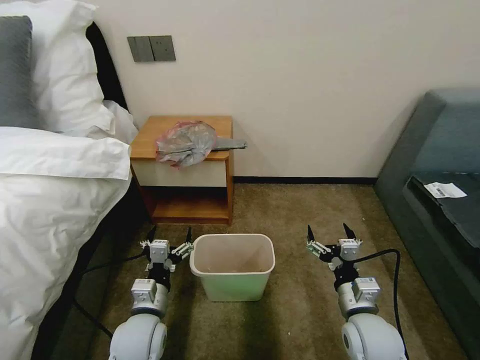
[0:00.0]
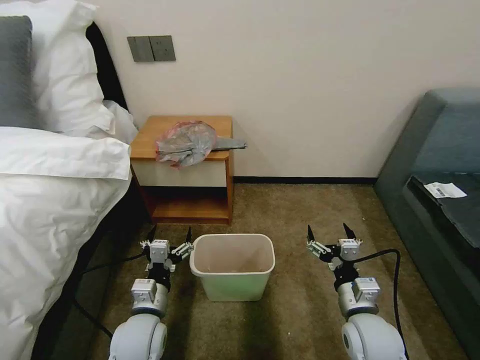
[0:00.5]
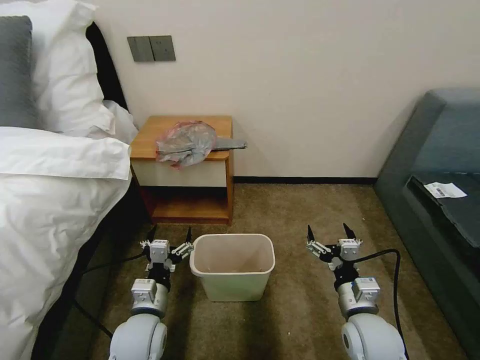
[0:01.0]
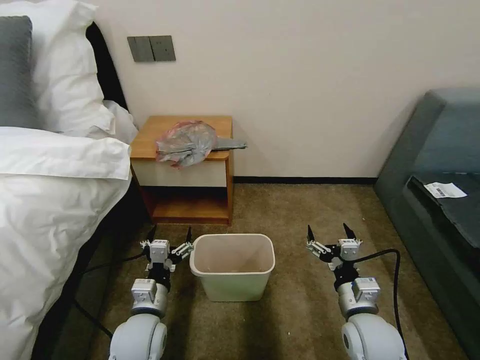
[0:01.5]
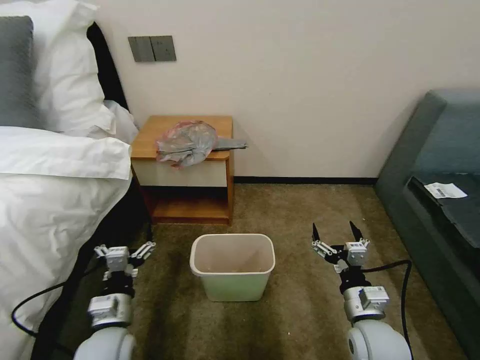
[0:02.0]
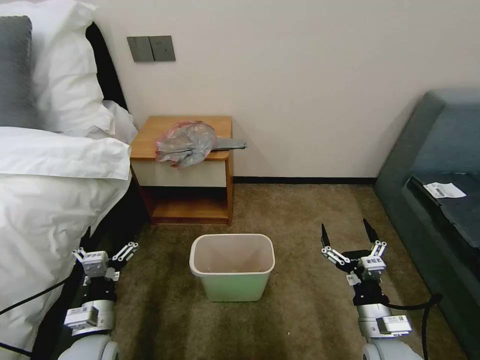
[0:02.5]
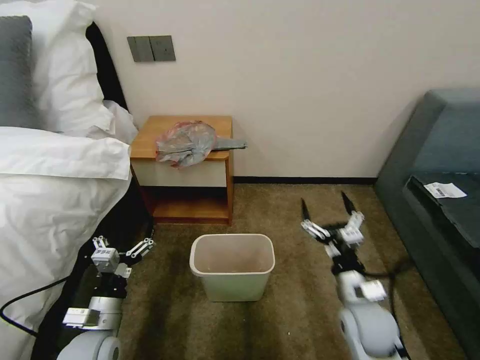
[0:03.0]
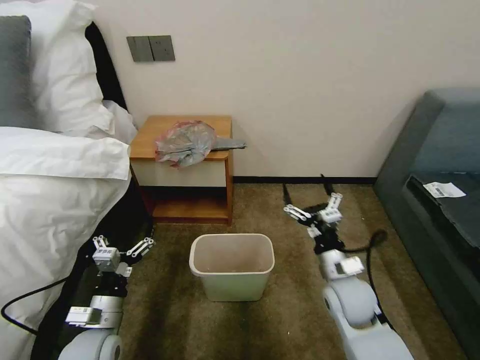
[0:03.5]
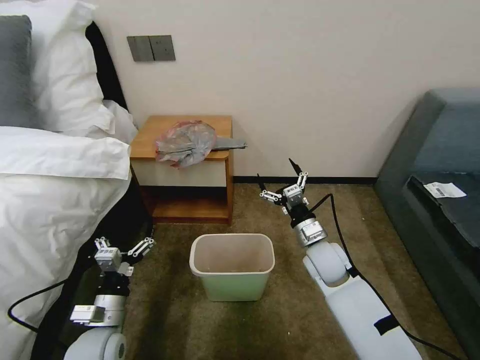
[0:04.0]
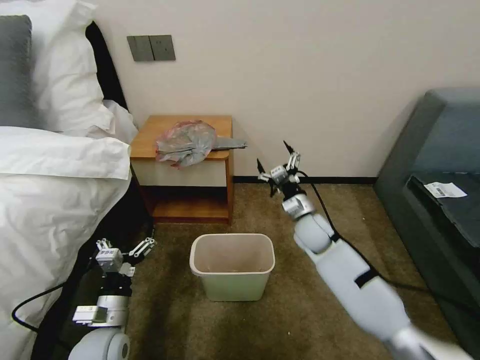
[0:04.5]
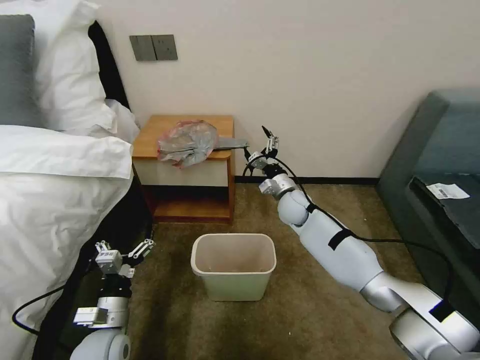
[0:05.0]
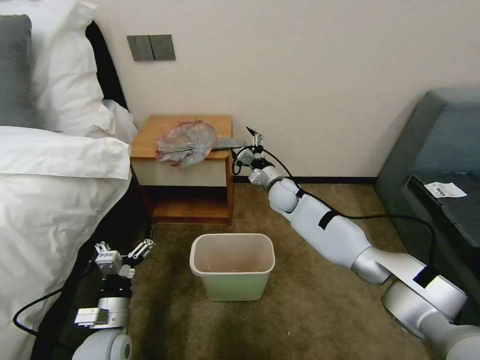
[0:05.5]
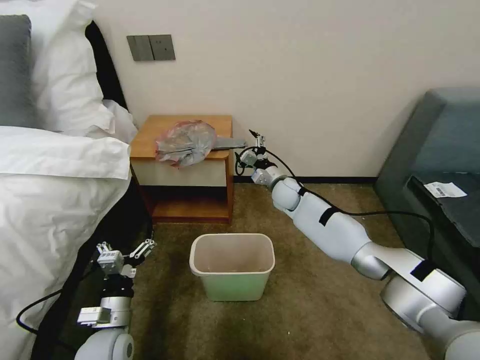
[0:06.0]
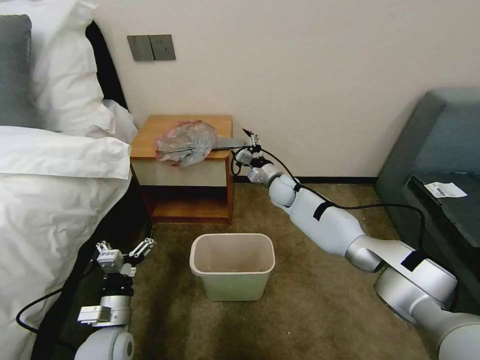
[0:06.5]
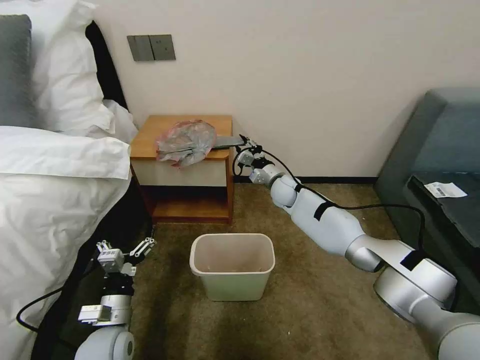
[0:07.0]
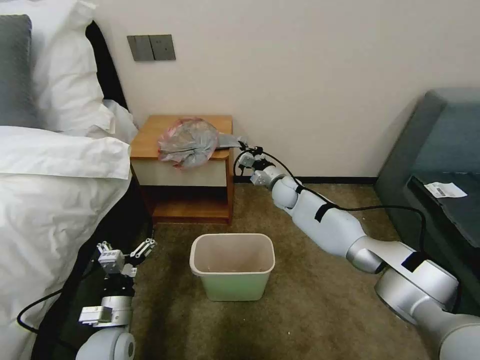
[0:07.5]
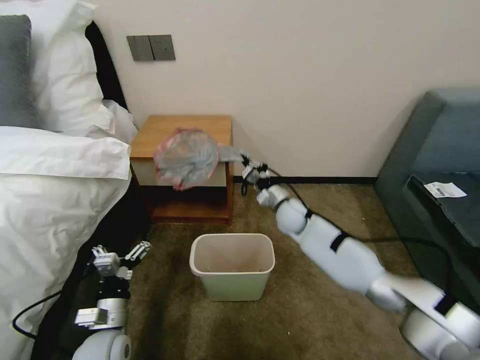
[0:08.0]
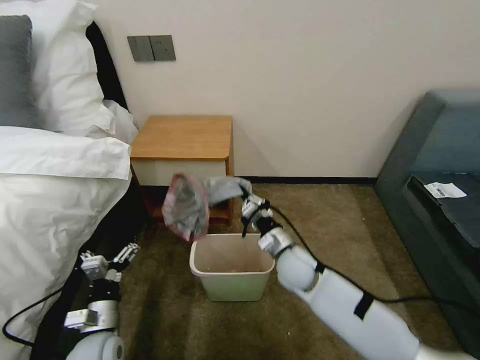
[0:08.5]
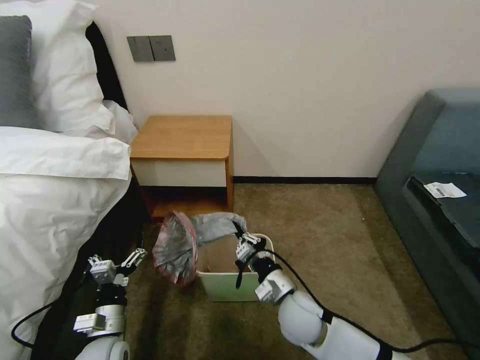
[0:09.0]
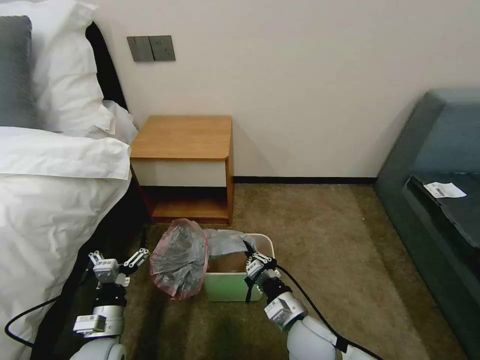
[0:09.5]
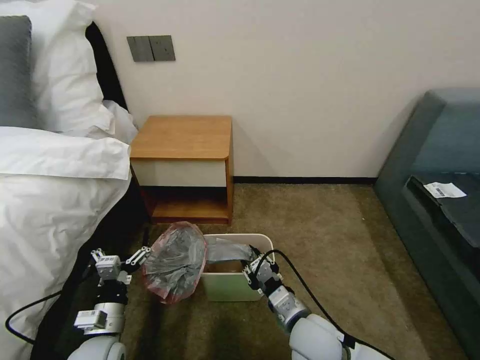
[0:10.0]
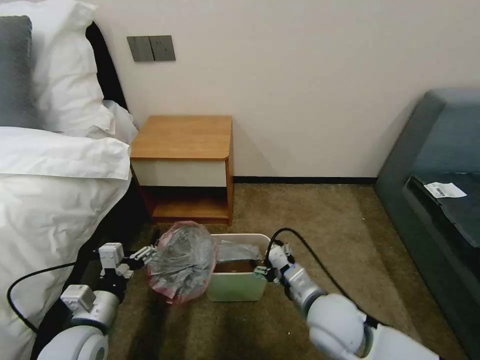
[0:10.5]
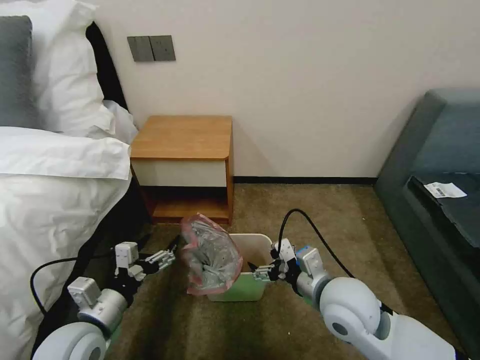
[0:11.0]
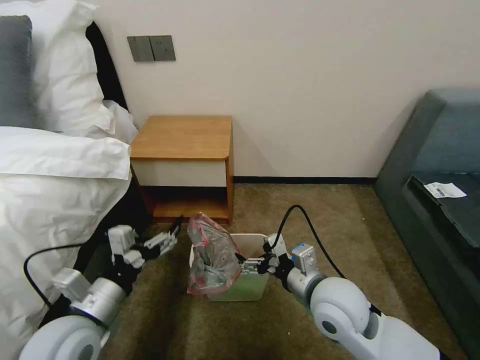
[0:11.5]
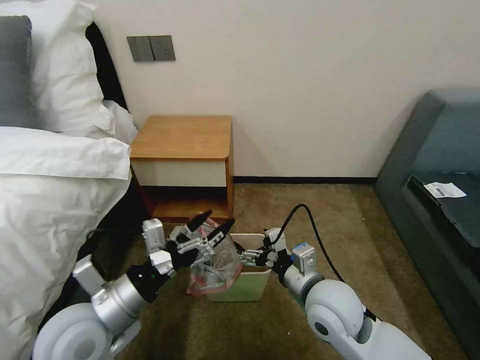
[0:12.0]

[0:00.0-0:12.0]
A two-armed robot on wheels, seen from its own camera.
Task of the whole recording: Pick up the garbage bag from the table and place it over the trash can.
0:02.0 to 0:04.0: The right gripper moves forward, some 15 cm.
0:04.0 to 0:06.0: The right gripper goes about 20 cm forward.
0:06.0 to 0:08.0: The right gripper travels backward by roughly 5 cm, and closes its fingers.
0:08.0 to 0:10.0: The right gripper travels backward by about 30 cm, and opens its fingers.
0:10.0 to 0:12.0: The left gripper shifts roughly 15 cm upward. Meanwhile the right gripper heads upward, covering roughly 10 cm, and opens.

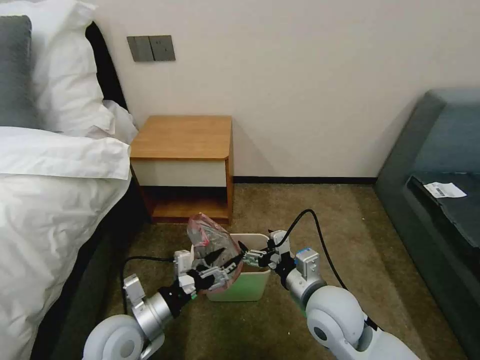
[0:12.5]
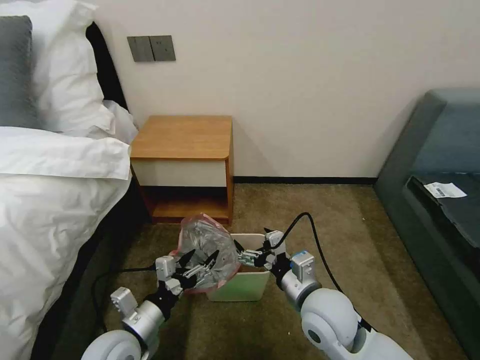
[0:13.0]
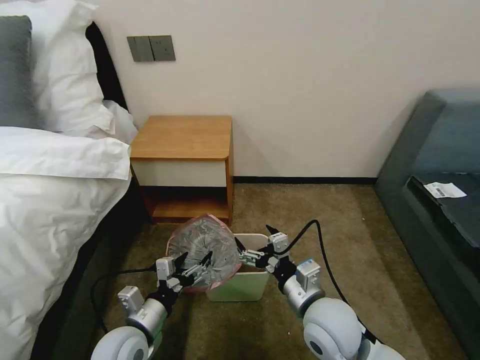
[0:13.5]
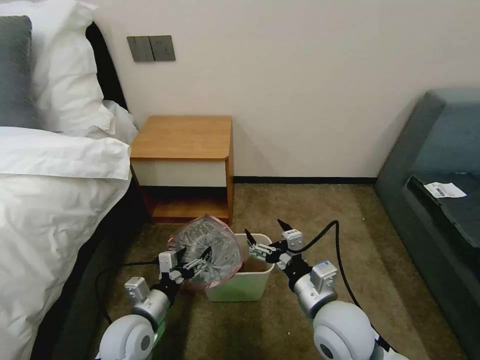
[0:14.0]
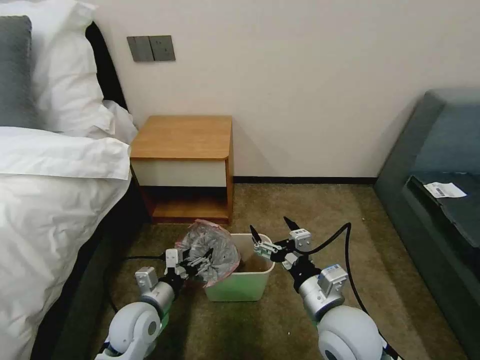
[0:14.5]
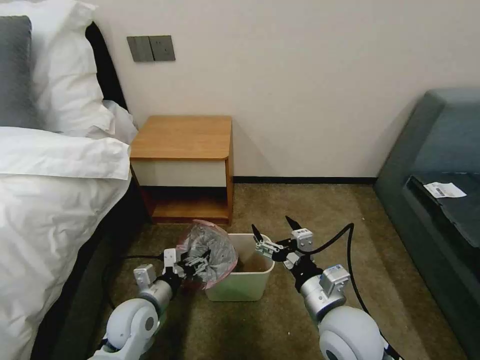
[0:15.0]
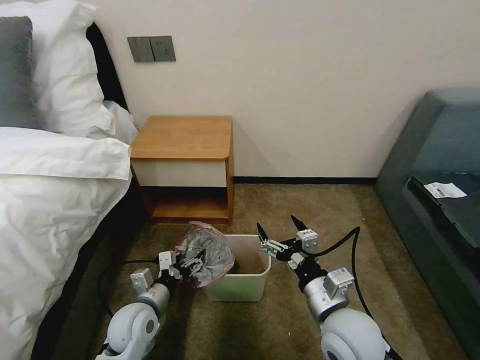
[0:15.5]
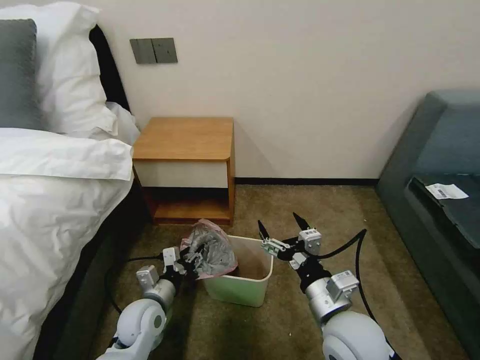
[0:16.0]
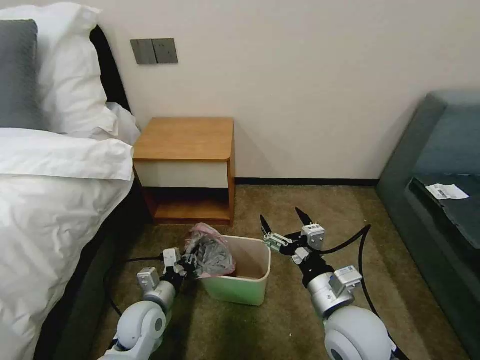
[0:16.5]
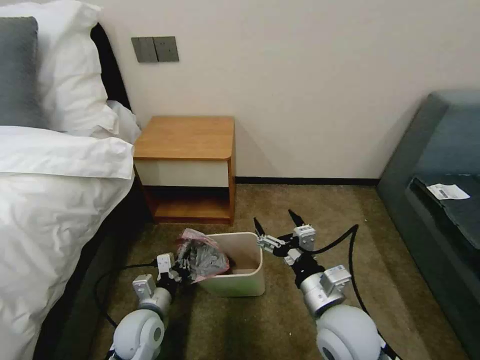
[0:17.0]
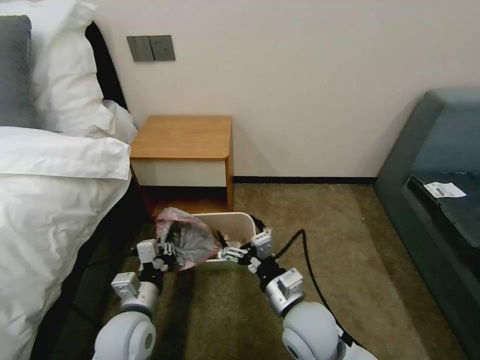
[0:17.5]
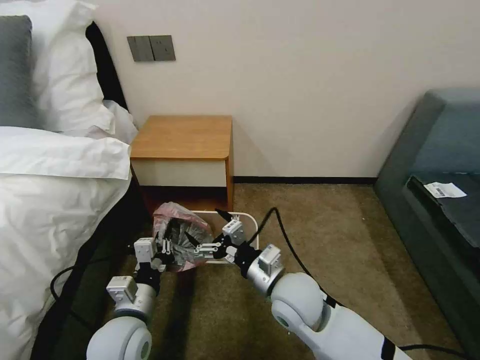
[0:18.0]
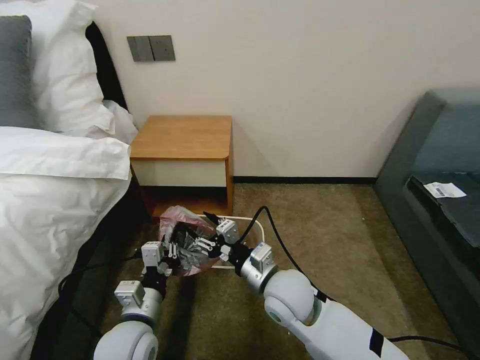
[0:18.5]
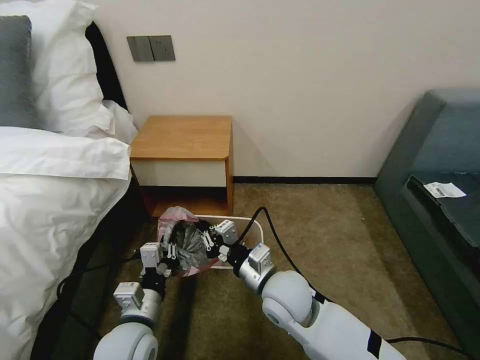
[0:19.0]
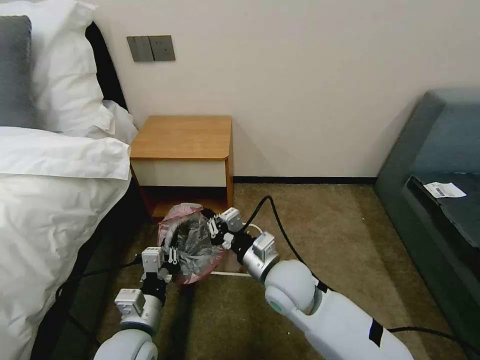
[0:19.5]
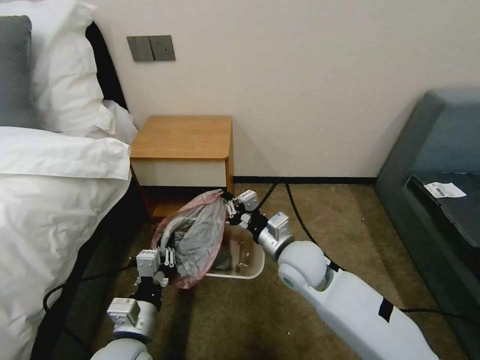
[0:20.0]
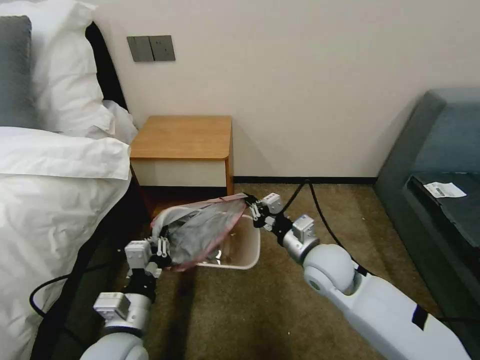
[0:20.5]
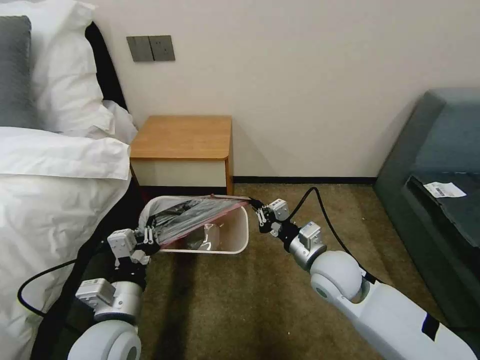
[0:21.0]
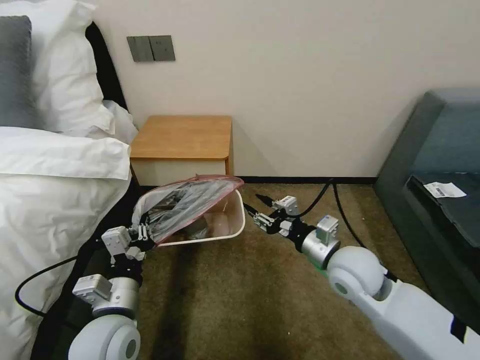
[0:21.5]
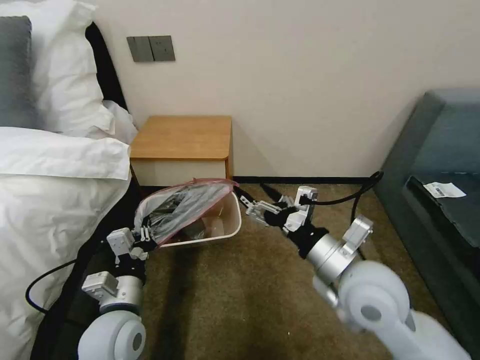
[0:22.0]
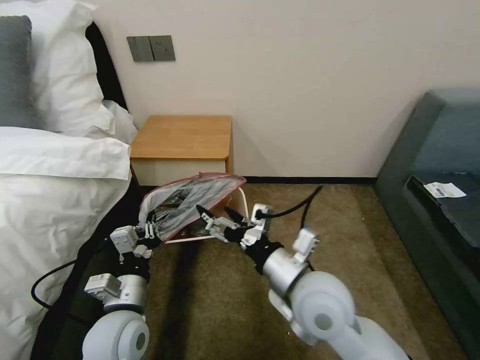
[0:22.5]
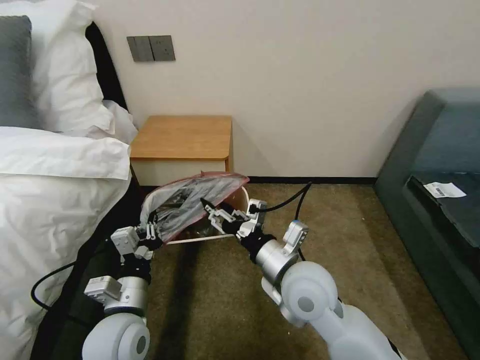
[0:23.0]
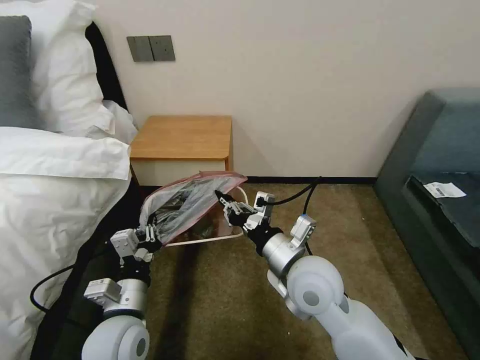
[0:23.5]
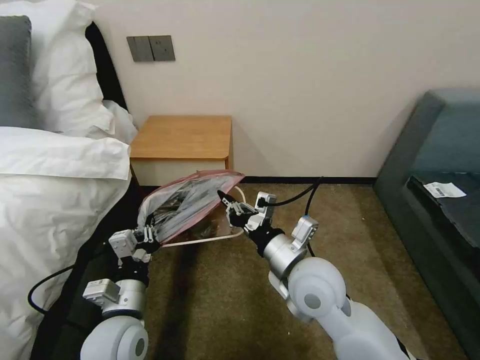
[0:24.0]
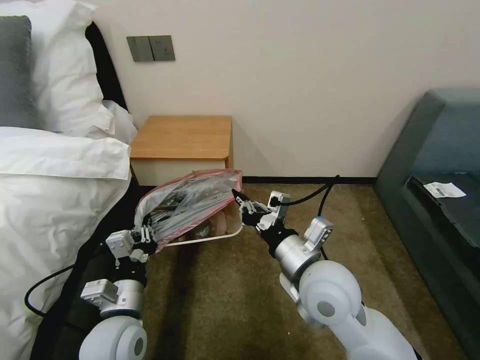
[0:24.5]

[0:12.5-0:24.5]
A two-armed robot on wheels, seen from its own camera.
Task of the whole recording: Pick up the garbage bag from the table and place it over the trash can.
0:12.5 to 0:14.5: The left gripper shifts some 5 cm downward.
0:14.5 to 0:16.5: The left gripper closes its fingers.
0:16.5 to 0:18.5: The left gripper is displaced upward and backward by about 10 cm, while the right gripper moves to the left and forward, about 10 cm, and closes its fingers.
0:18.5 to 0:20.5: The right gripper is displaced to the right and forward by roughly 10 cm, and closes up.
0:20.5 to 0:22.5: The right gripper goes approximately 10 cm backward, upward and to the left, and opens.
0:22.5 to 0:24.5: The right gripper closes.

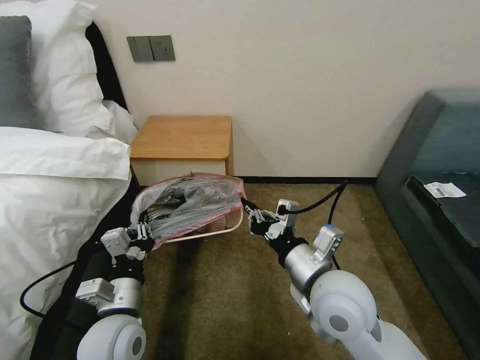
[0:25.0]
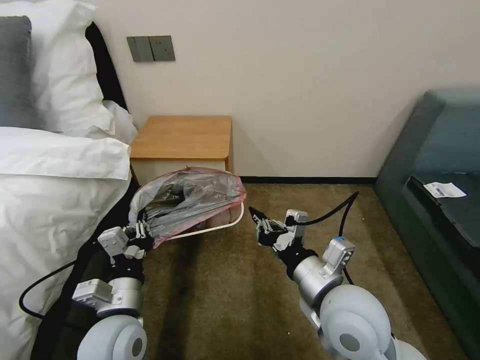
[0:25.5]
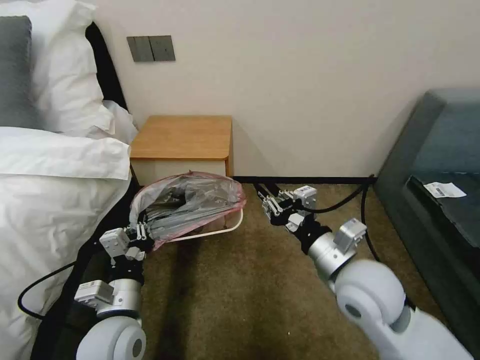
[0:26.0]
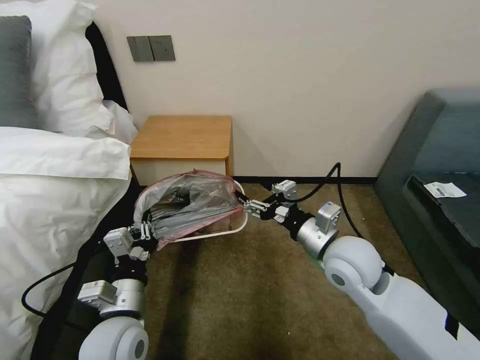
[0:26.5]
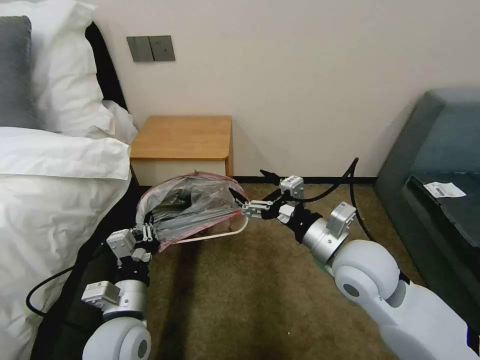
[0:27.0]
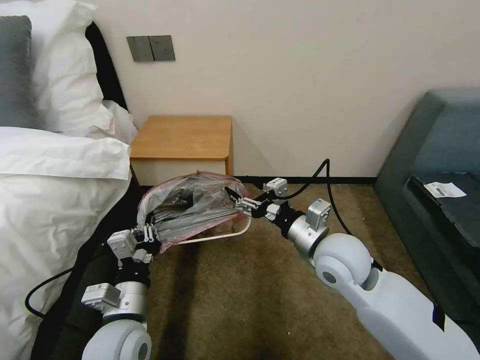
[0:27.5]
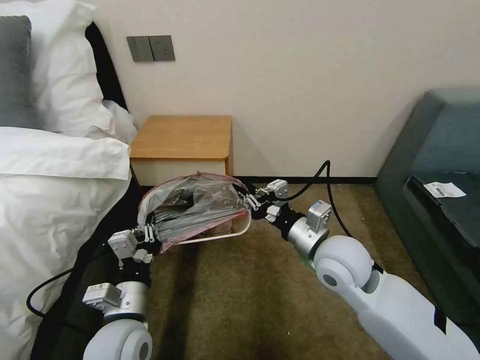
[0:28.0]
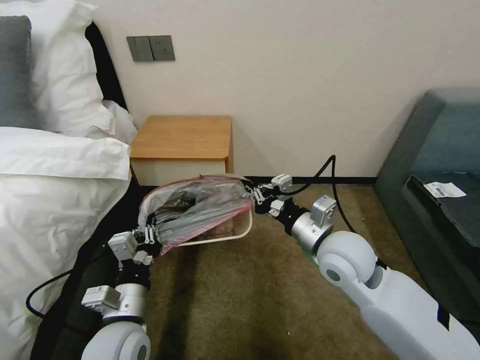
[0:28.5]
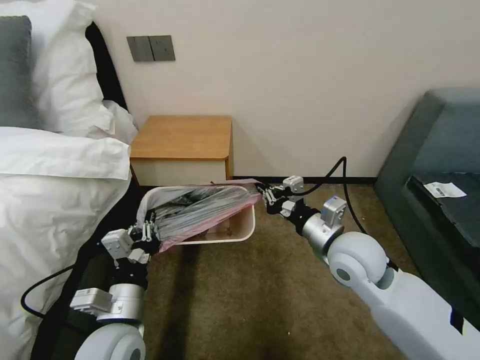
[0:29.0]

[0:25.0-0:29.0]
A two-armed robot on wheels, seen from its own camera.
Task of the whole recording: Pick up the garbage bag from the table and place it over the trash can.
0:25.0 to 0:27.0: The right gripper shifts by approximately 5 cm, and opens its fingers.
0:27.0 to 0:29.0: The right gripper closes up.
